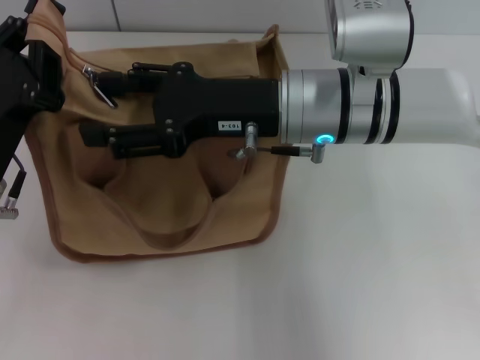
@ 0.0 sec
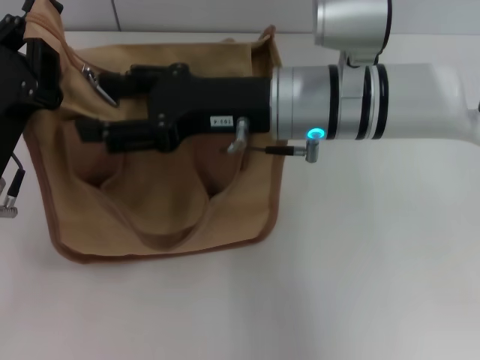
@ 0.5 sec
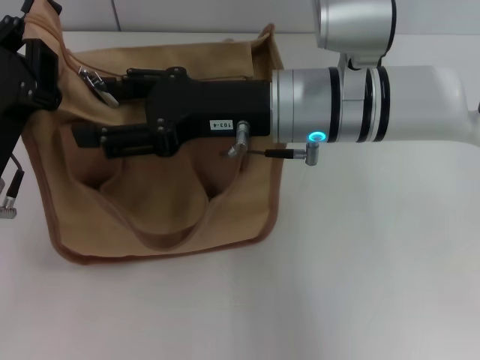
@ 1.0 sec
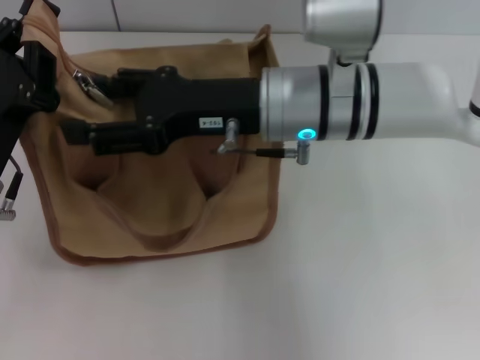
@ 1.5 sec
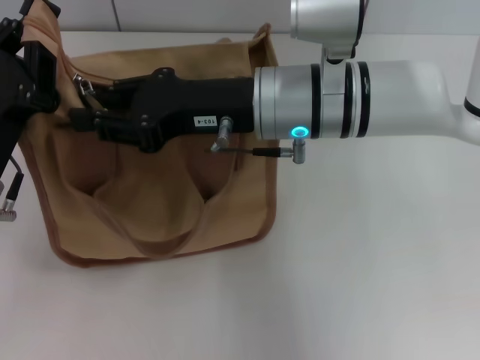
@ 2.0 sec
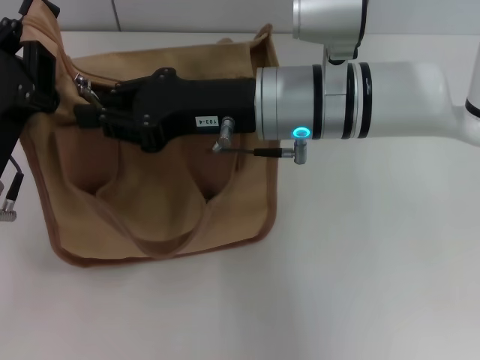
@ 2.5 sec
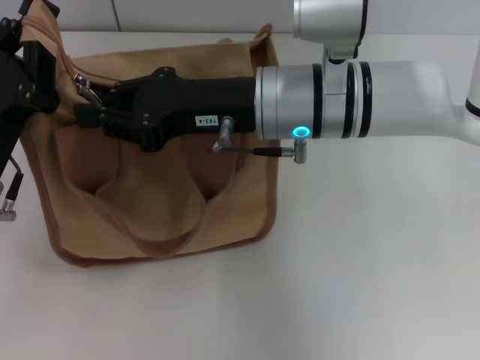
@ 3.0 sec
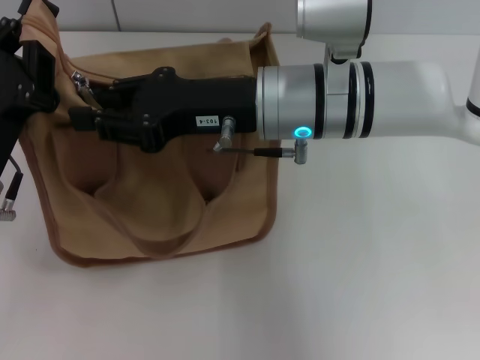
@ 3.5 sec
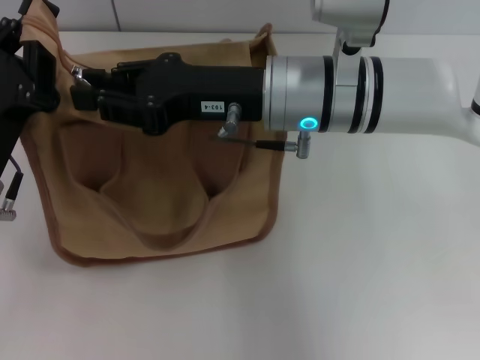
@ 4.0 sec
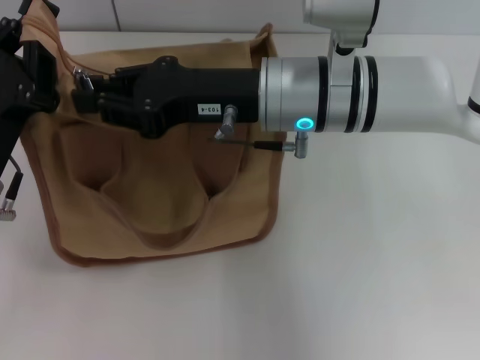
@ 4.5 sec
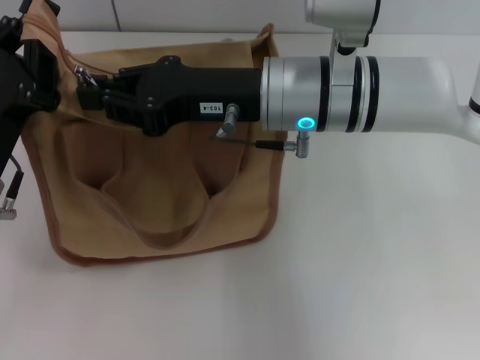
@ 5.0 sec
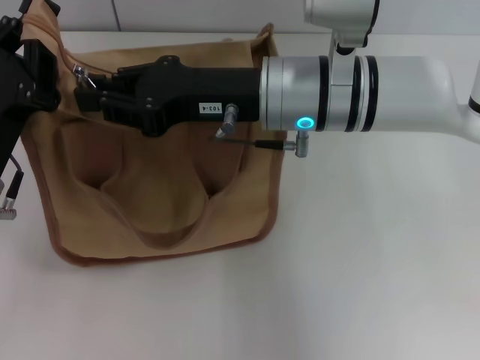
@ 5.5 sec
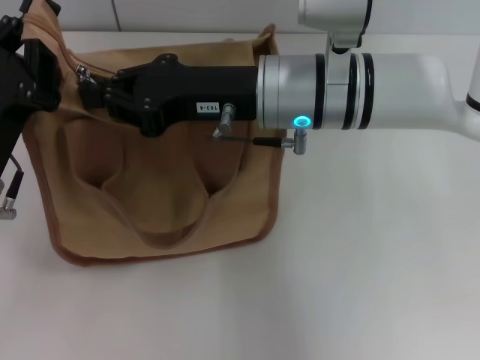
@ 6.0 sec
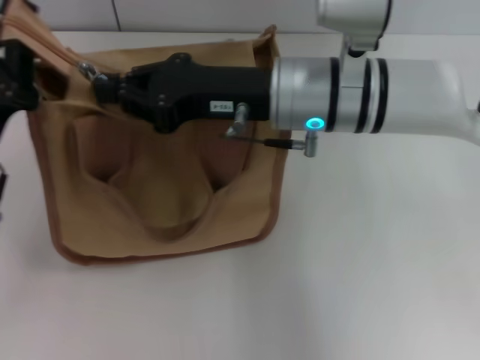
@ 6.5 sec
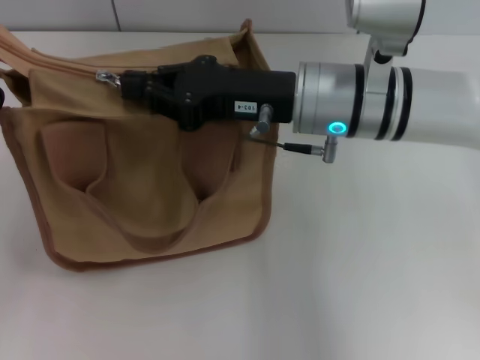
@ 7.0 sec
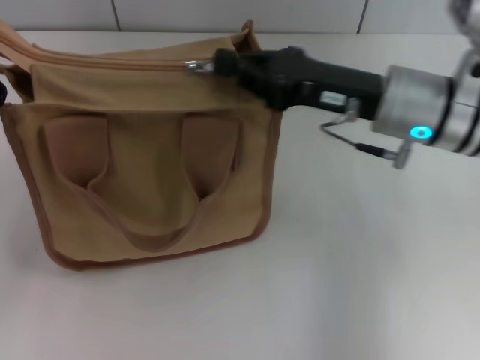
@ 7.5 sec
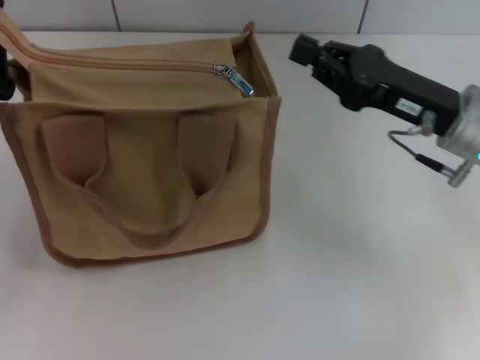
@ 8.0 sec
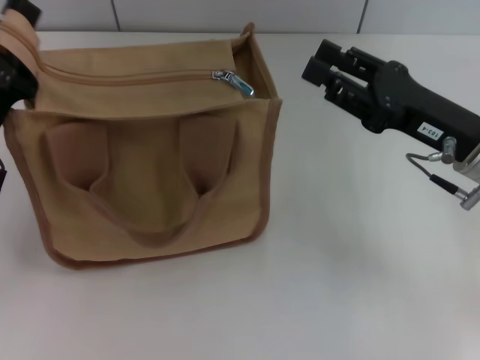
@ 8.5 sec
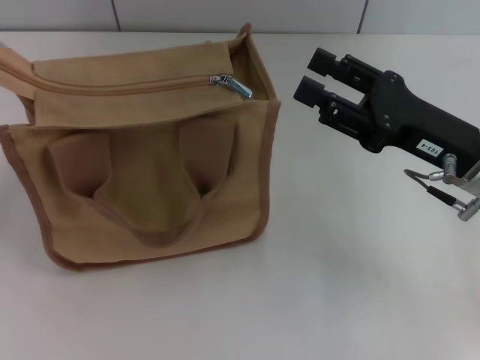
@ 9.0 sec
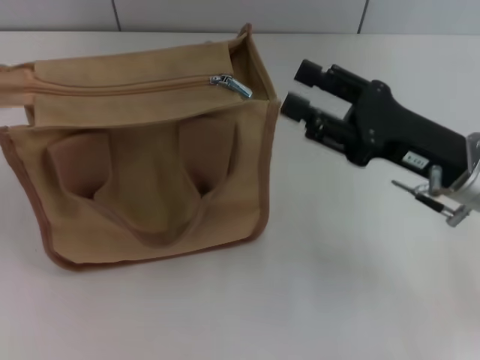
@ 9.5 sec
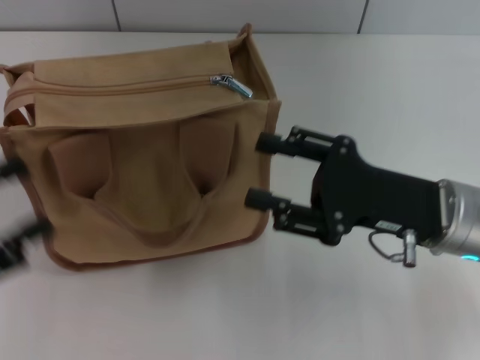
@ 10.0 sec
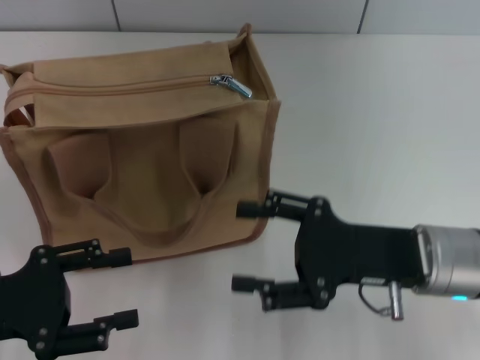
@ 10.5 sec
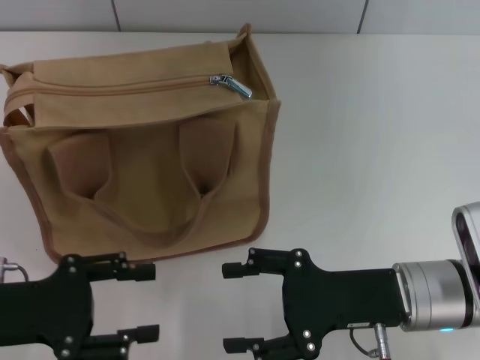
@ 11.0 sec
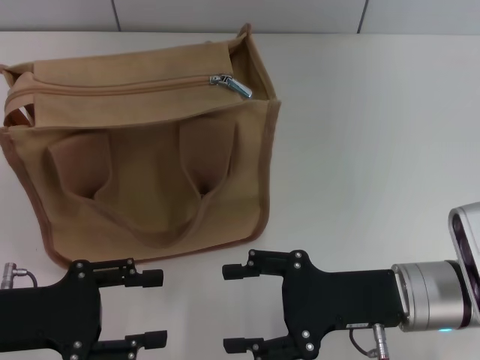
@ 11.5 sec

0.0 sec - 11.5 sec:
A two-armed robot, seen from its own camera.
Step, 0.0 sec - 8.0 sec: Pull up the zipper with your right hand.
Step, 8.5 sec - 9.0 sec: Grab the zipper with your left hand.
0.0 sec - 2.0 sec: The right gripper closes.
2.0 sec - 6.0 sec: Neither gripper changes place.
6.0 sec - 7.5 sec: The right gripper goes approximately 10 cm to the right.
7.5 sec - 9.5 sec: The right gripper travels backward and to the right by approximately 10 cm, and opens up. Meanwhile the left gripper goes some 10 cm to the left and upward, and opens up.
9.5 sec - 11.5 sec: The right gripper heads backward and downward, covering roughly 10 cm. The left gripper travels to the right and downward by approximately 10 cm.
